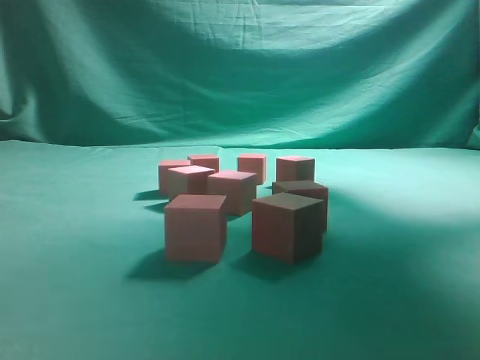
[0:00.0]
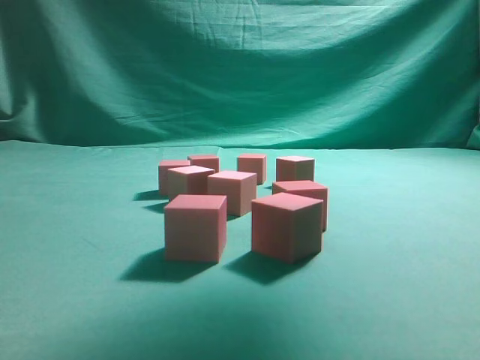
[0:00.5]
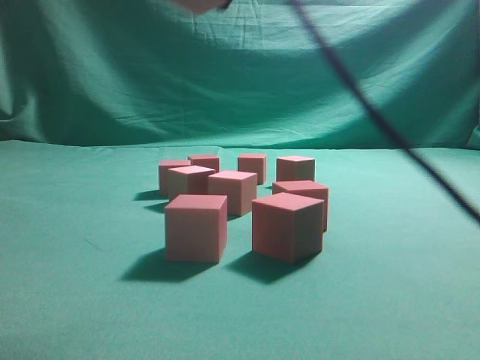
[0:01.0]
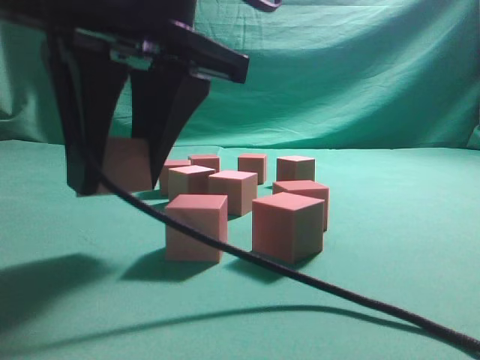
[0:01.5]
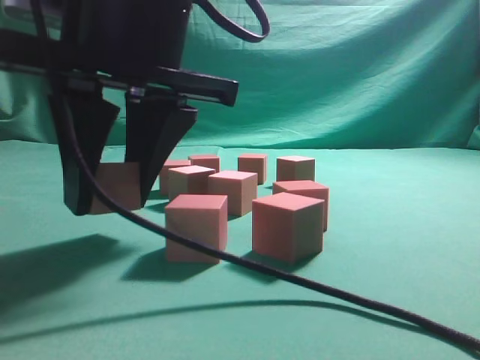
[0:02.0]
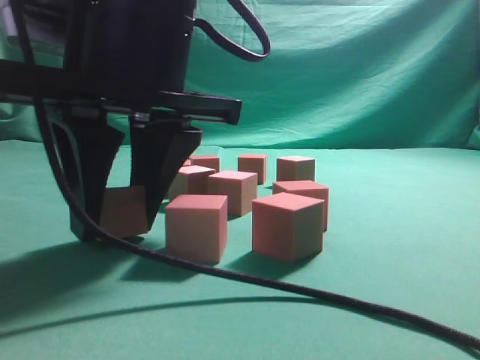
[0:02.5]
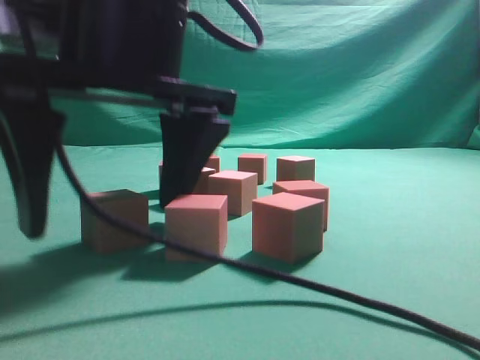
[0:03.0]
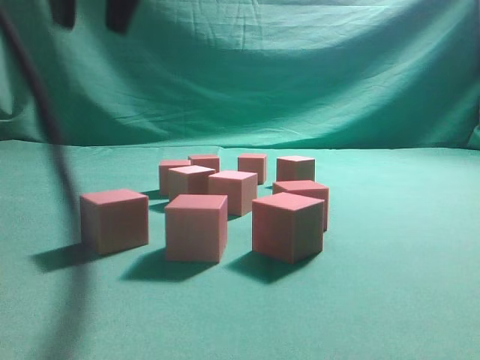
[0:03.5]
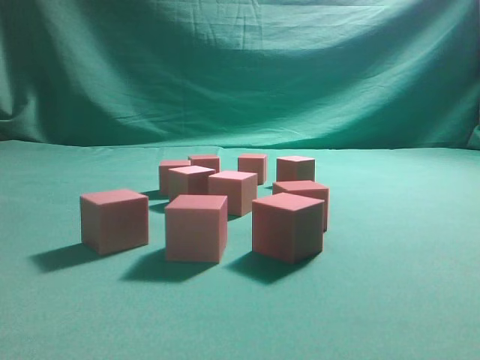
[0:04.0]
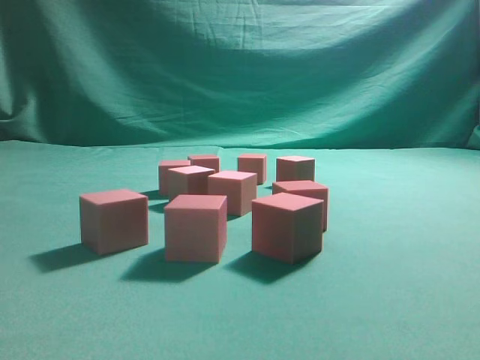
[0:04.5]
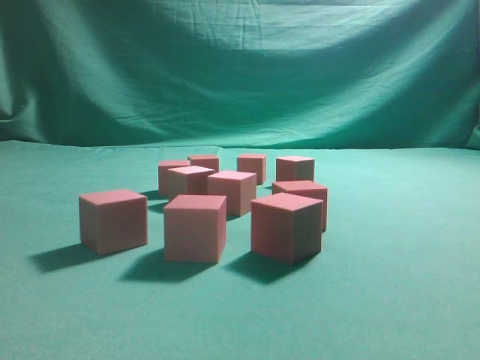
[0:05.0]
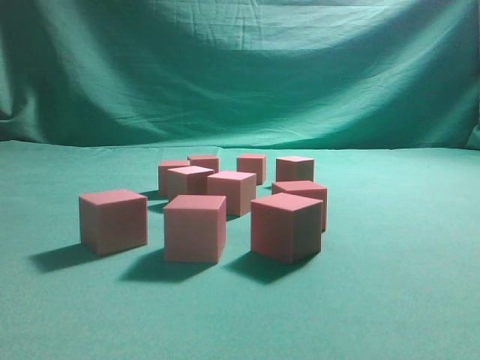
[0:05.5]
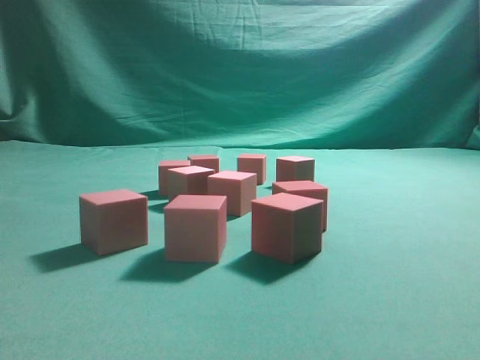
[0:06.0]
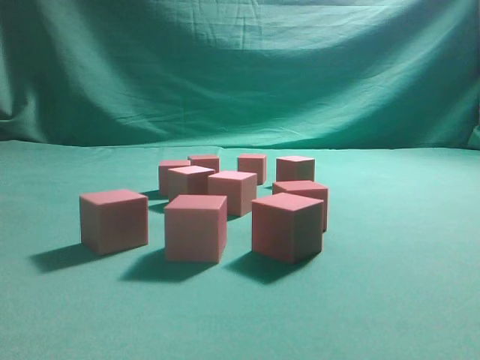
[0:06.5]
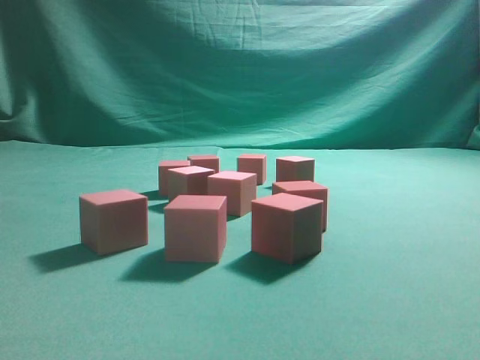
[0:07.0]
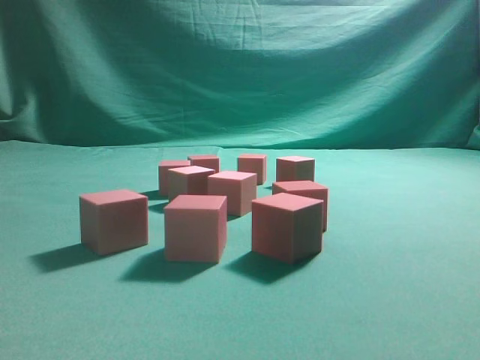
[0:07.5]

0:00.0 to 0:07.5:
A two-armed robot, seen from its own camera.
Task of the whole recording: pick up the multiple cubes in two columns one by one and place them in another position on the table.
Step, 0:00.0 to 0:03.0: Place the block at the correct position to assemble the letter S.
0:00.0 to 0:02.0: The right gripper is displaced to the left, backward and downward by roughly 40 cm.
0:02.0 to 0:04.0: The right gripper is displaced upward by roughly 30 cm, and closes its fingers.

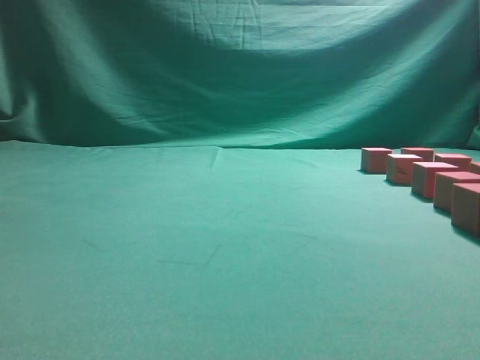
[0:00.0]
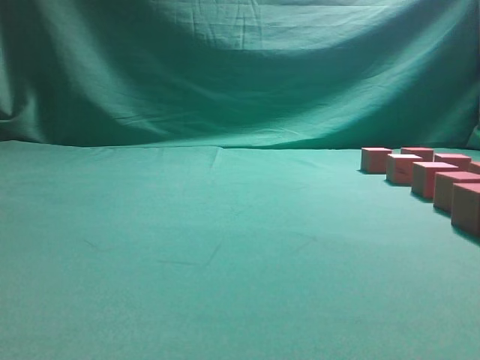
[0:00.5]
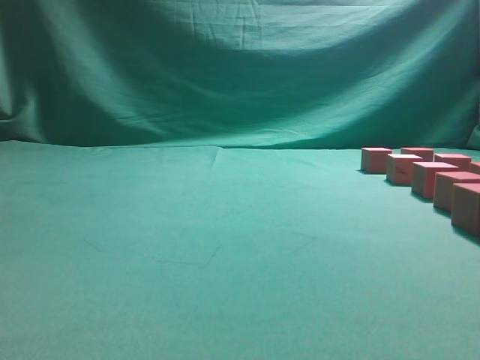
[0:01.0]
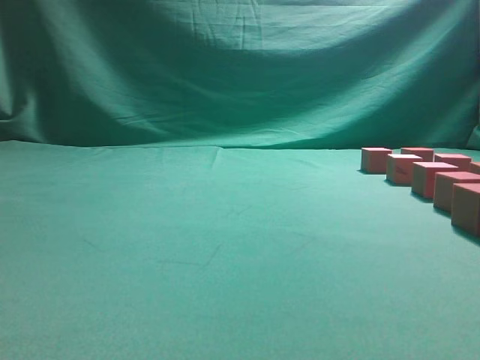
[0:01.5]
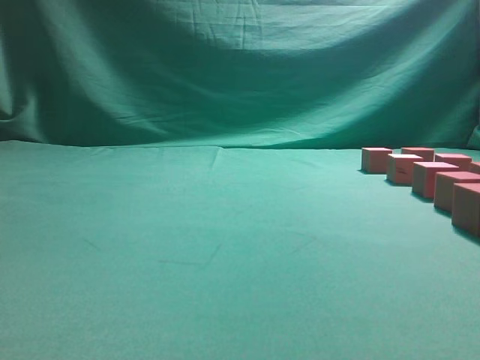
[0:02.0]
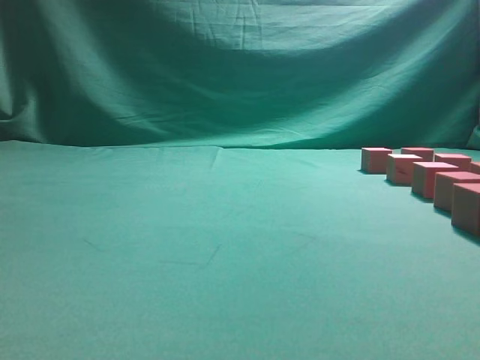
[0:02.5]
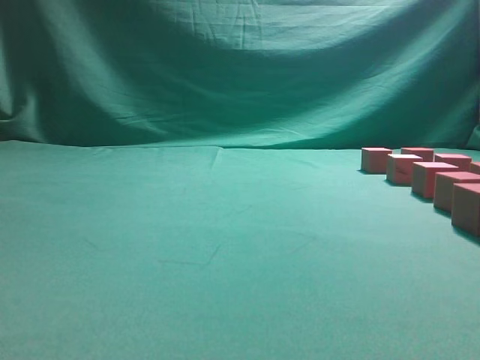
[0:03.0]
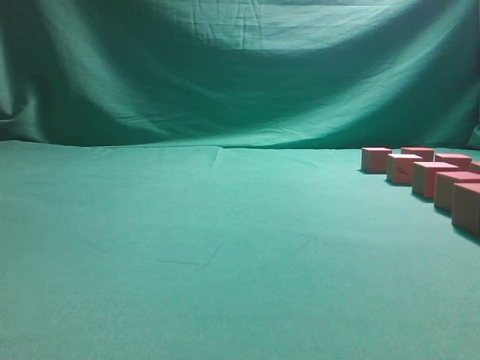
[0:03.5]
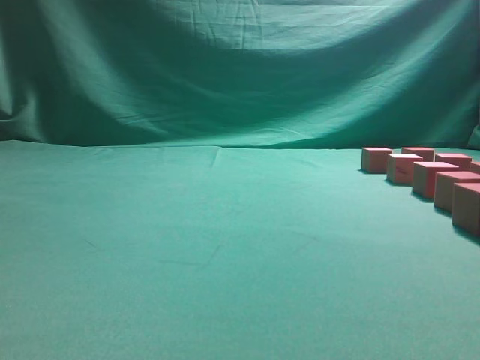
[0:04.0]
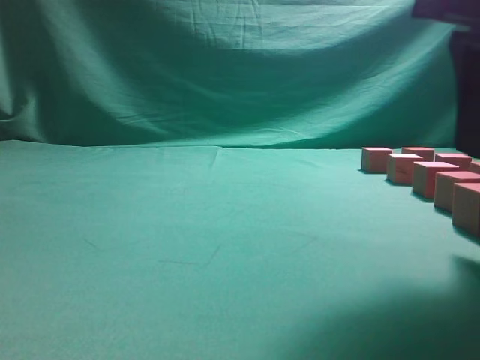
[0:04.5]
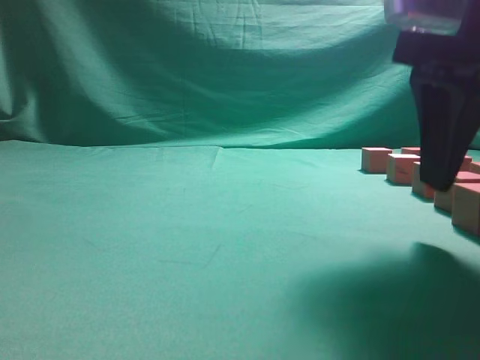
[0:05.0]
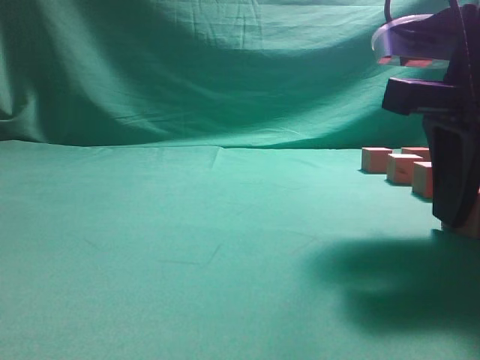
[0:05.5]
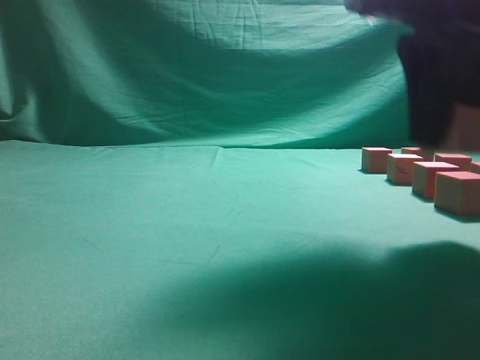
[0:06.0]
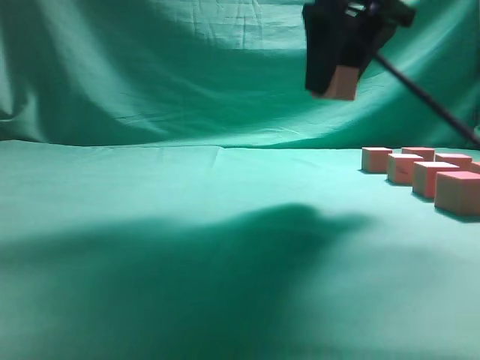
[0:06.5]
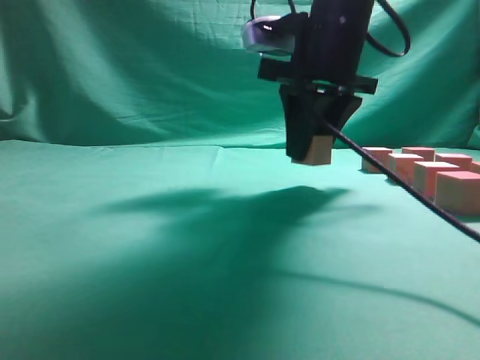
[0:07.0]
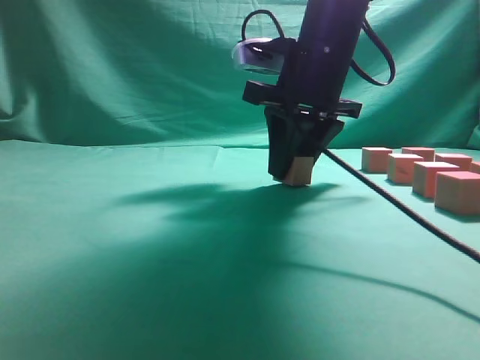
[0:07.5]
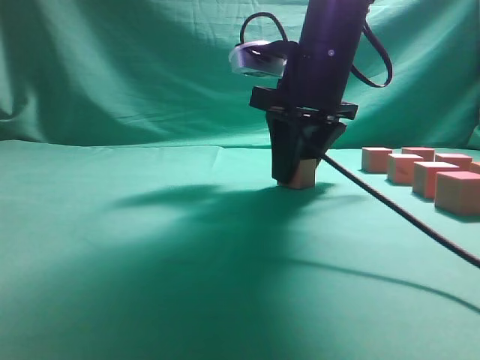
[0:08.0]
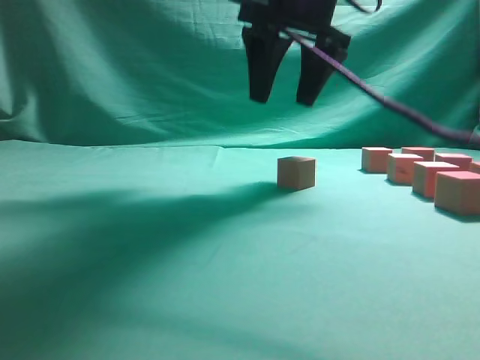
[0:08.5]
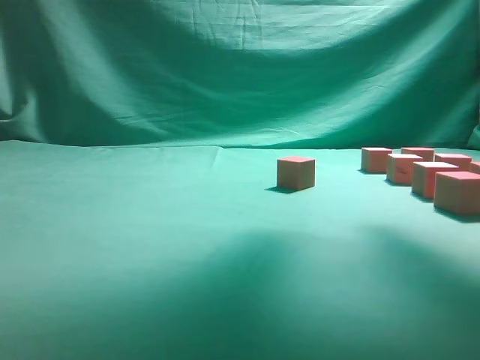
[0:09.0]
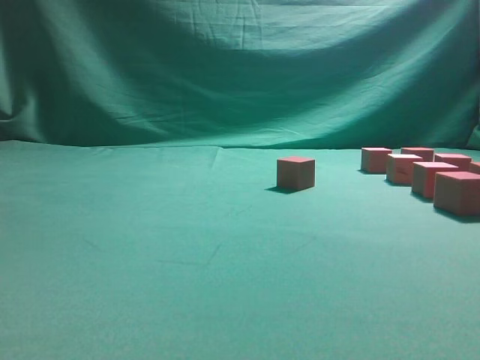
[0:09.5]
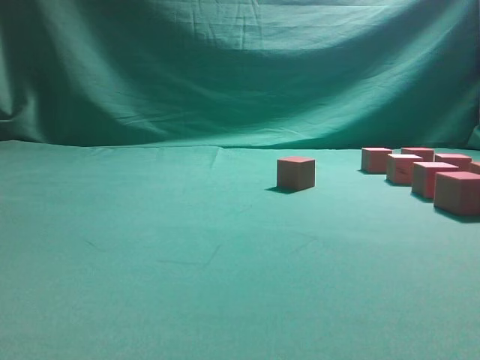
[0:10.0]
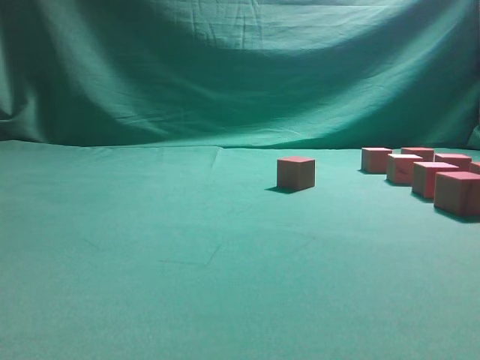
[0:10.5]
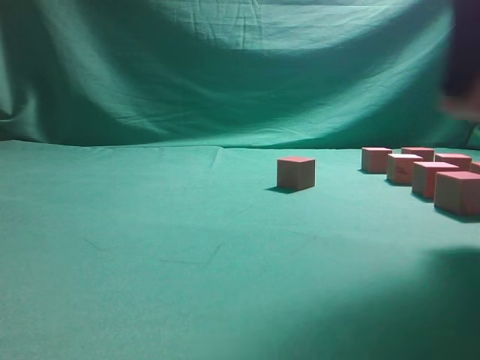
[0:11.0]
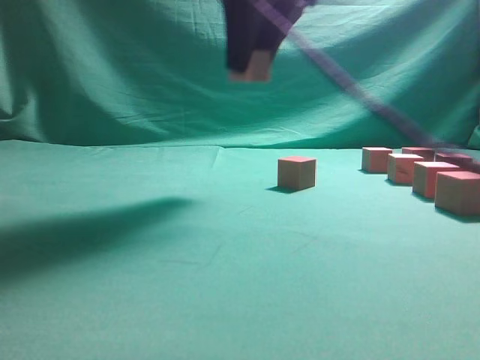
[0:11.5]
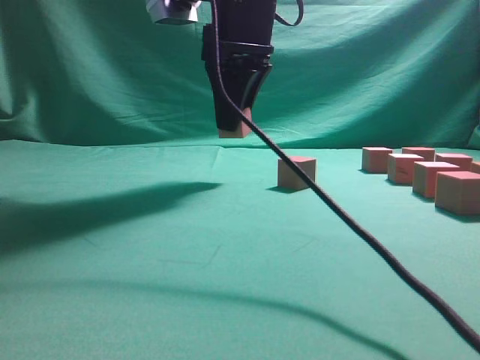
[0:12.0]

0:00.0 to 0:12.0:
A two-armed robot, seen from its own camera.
Task of the whole recording: pick up the multiple cubes in two columns one by one and place them in another position on the table.
Step, 0:00.0 to 0:05.5: Pick up the block on the table.
Step, 0:06.0 to 0:08.5: Place the block at the correct position to assemble the letter S.
Step, 0:09.0 to 0:10.5: Pick up the block on the table.
0:04.0 to 0:06.0: The right gripper heads forward, covering some 10 cm, and opens its fingers.
0:06.0 to 0:08.0: The right gripper moves forward and to the left, some 15 cm.
0:08.0 to 0:10.0: The right gripper moves to the right and backward, roughly 25 cm, and opens up.
0:10.0 to 0:12.0: The right gripper shifts some 30 cm to the left and forward.

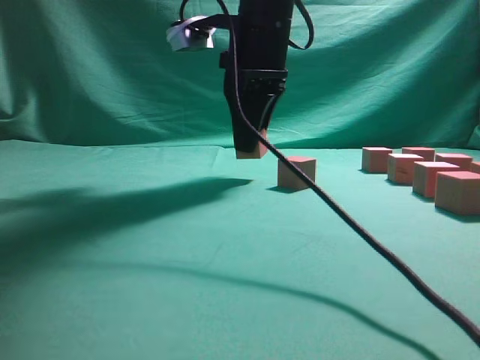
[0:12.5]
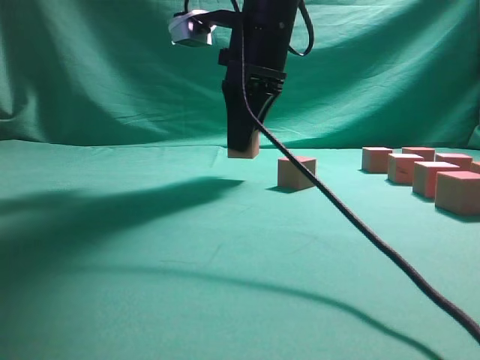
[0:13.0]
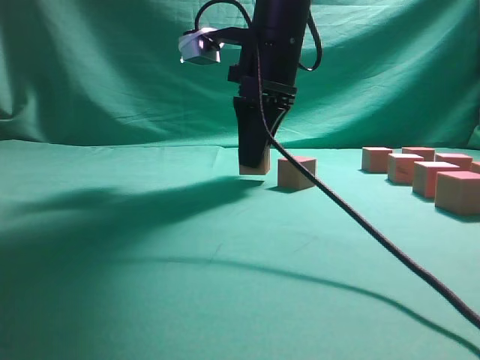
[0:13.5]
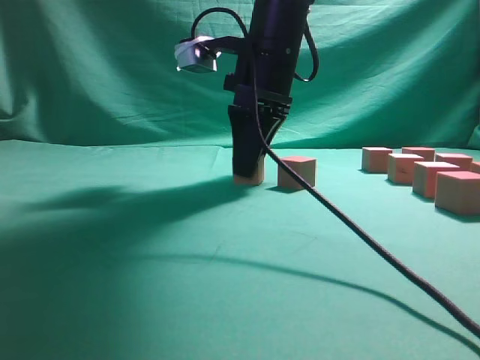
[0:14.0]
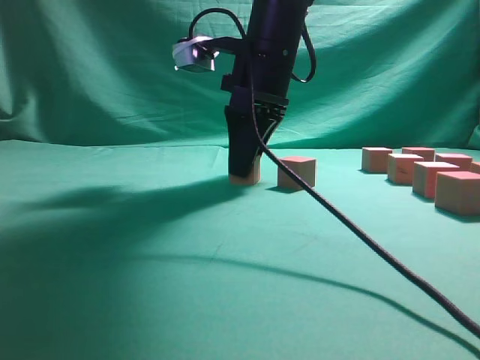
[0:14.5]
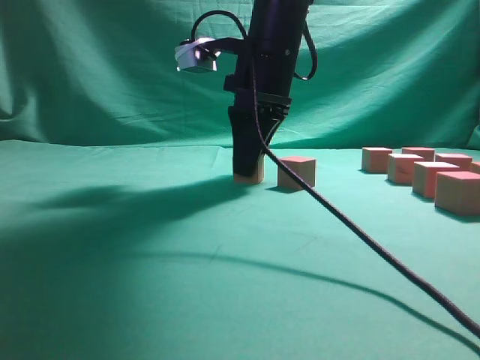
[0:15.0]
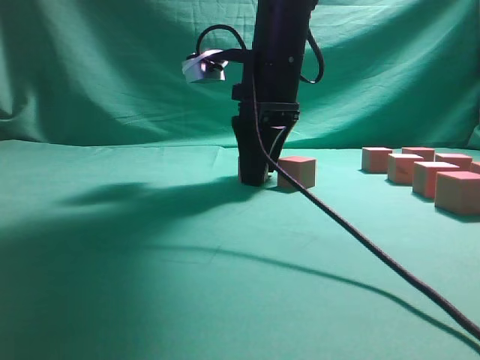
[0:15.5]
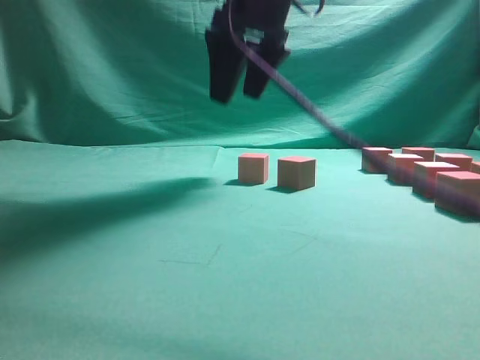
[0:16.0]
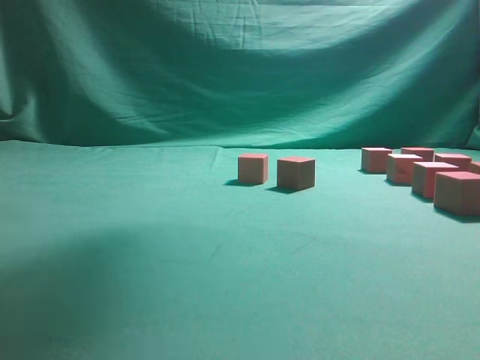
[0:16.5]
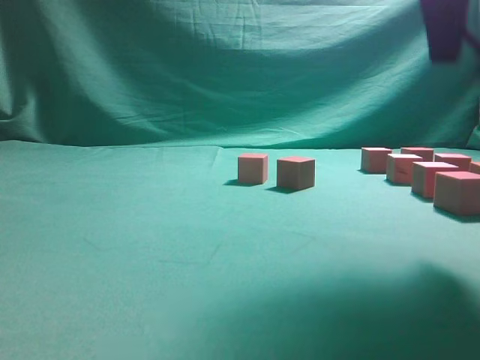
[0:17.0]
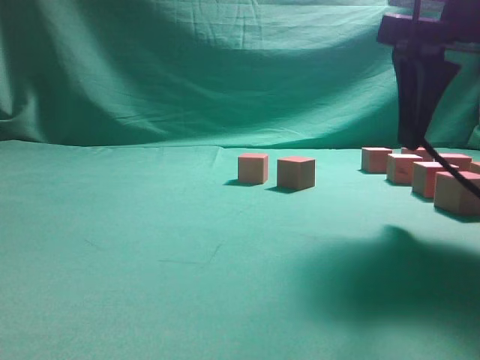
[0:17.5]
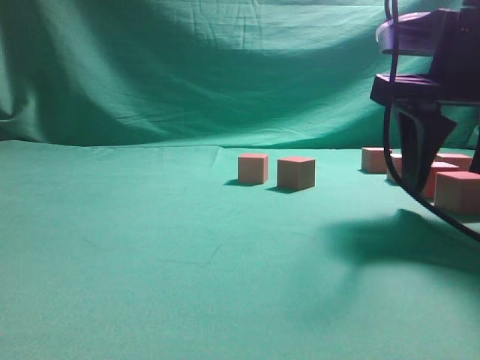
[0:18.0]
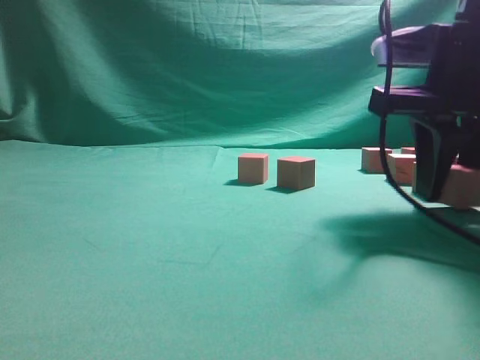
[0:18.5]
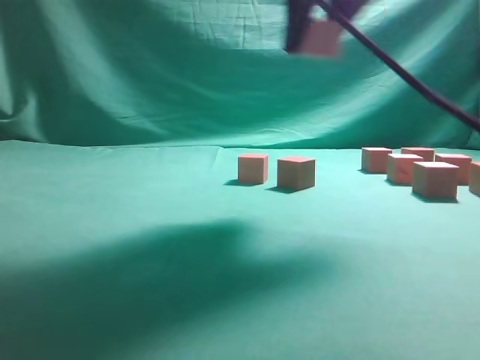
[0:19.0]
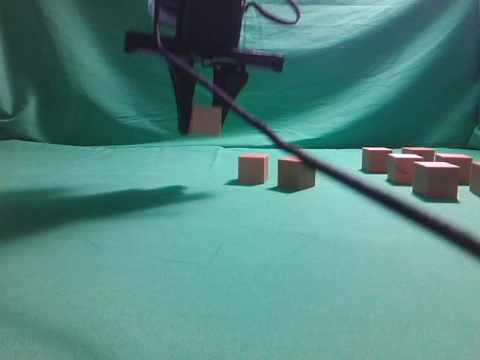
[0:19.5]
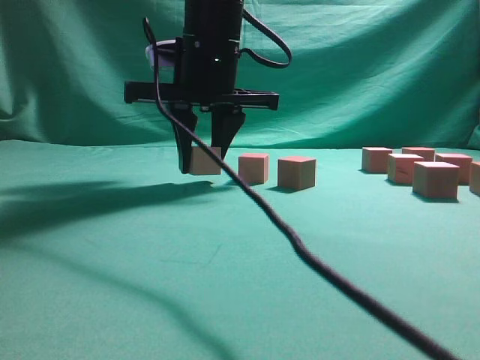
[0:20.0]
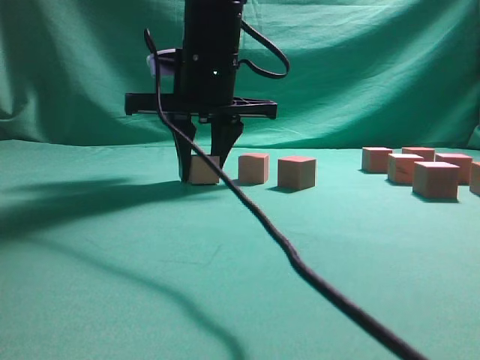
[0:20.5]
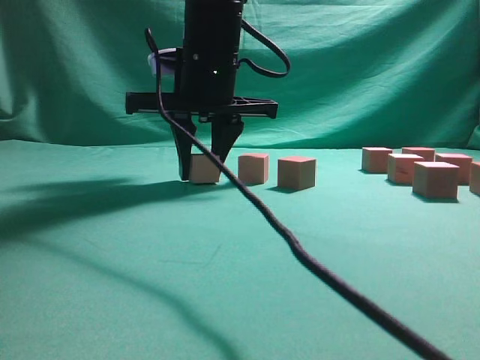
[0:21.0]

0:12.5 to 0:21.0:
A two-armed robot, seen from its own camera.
Task of the whole recording: pick up the multiple cubes in two columns one by one and place them in another position on the table.
Step, 0:12.5 to 0:16.0: Place the block at the correct position to assemble the letter S.
Step, 0:16.5 to 0:18.5: Pick up the block on the table.
0:14.5 to 0:16.5: The right gripper goes roughly 20 cm upward, and opens its fingers.
0:16.5 to 0:19.0: The right gripper heads downward, covering about 10 cm, and closes up.
0:19.0 to 0:21.0: The right gripper goes approximately 20 cm to the left, downward and forward.
